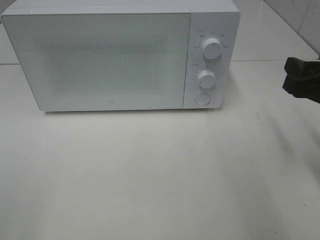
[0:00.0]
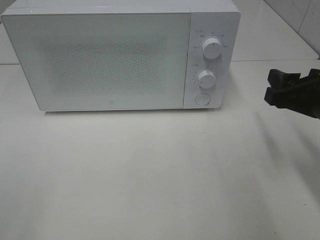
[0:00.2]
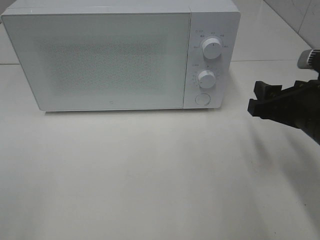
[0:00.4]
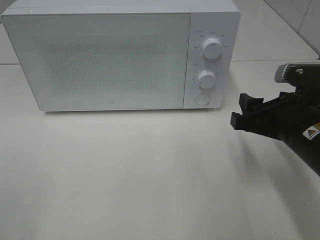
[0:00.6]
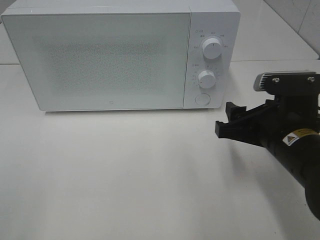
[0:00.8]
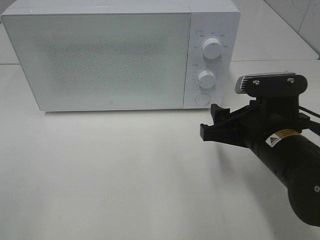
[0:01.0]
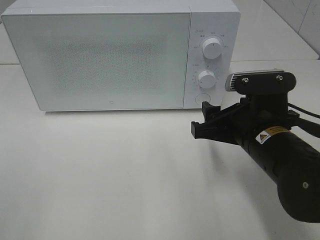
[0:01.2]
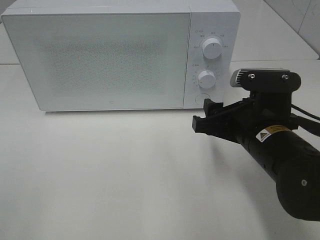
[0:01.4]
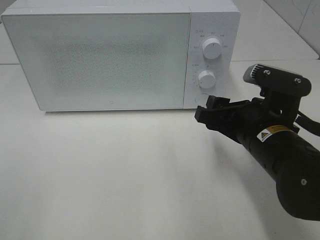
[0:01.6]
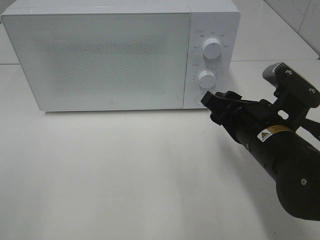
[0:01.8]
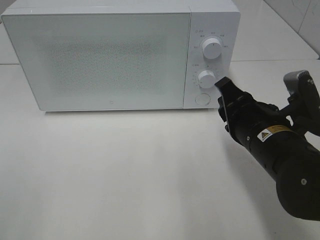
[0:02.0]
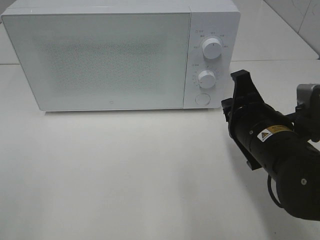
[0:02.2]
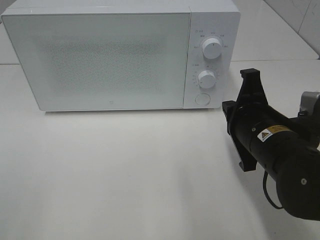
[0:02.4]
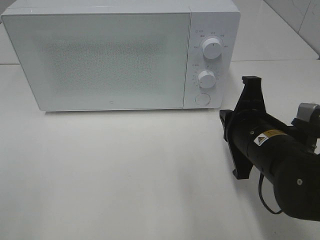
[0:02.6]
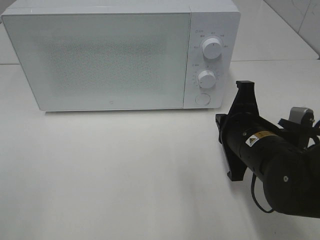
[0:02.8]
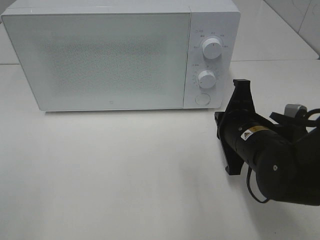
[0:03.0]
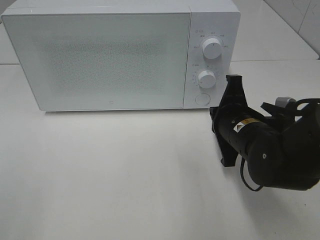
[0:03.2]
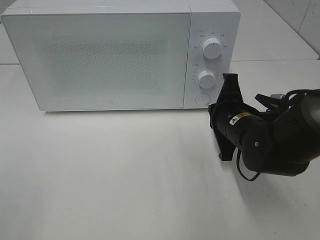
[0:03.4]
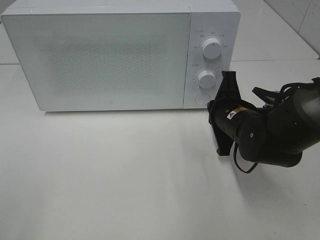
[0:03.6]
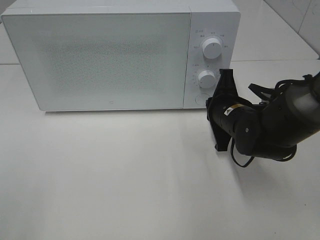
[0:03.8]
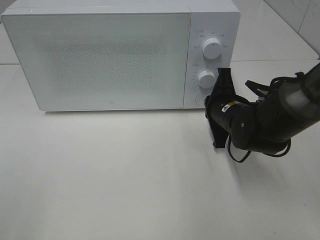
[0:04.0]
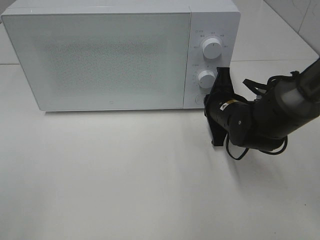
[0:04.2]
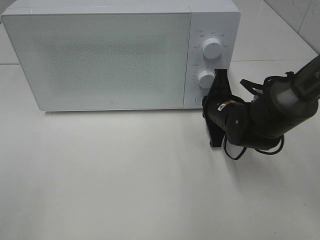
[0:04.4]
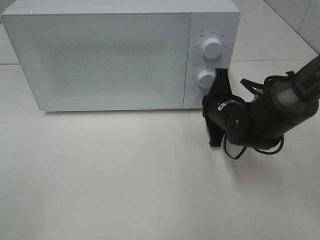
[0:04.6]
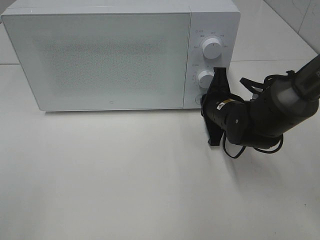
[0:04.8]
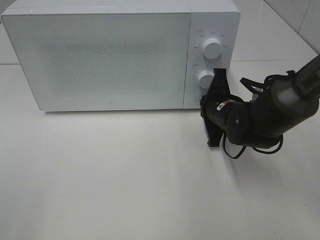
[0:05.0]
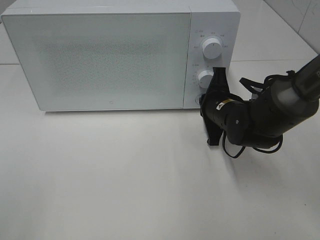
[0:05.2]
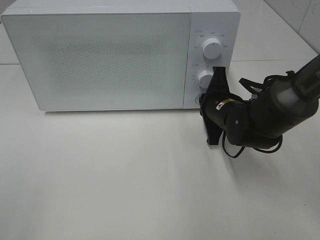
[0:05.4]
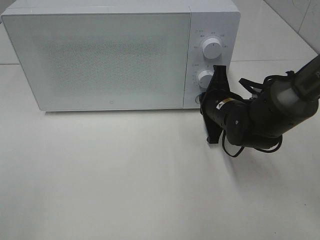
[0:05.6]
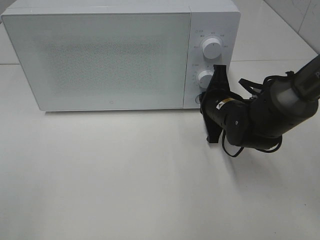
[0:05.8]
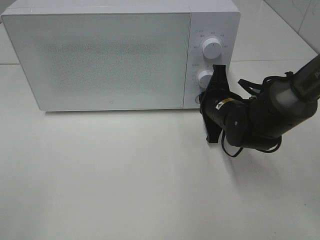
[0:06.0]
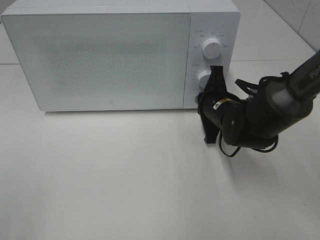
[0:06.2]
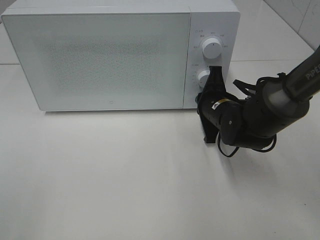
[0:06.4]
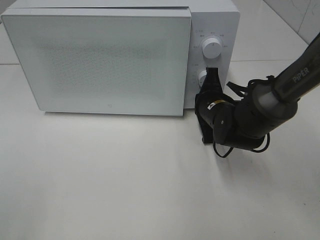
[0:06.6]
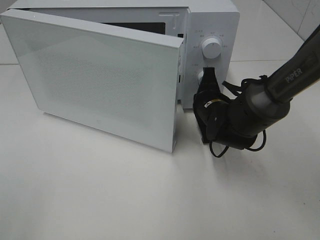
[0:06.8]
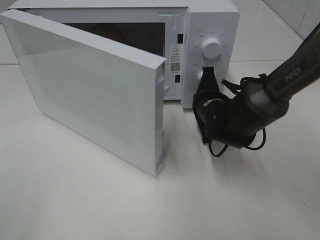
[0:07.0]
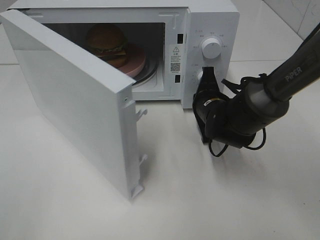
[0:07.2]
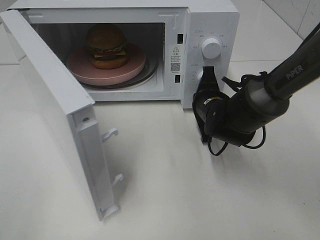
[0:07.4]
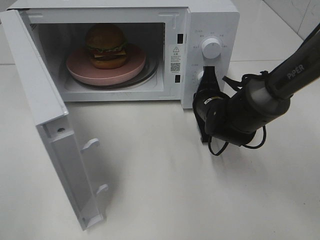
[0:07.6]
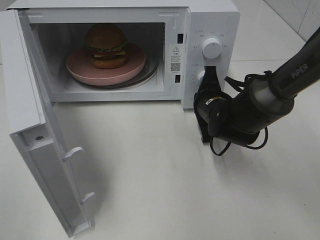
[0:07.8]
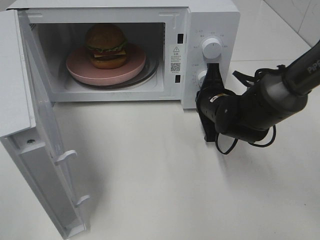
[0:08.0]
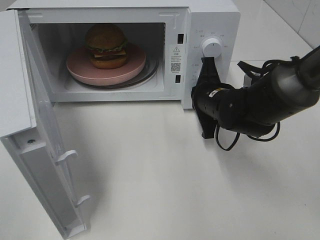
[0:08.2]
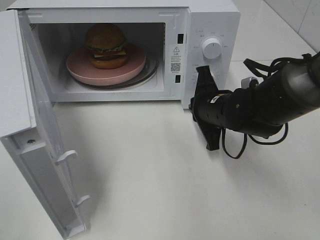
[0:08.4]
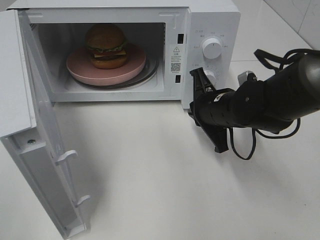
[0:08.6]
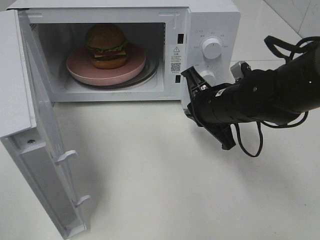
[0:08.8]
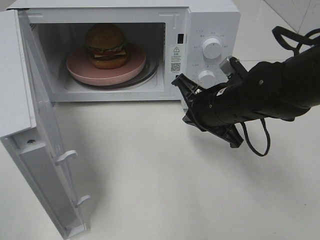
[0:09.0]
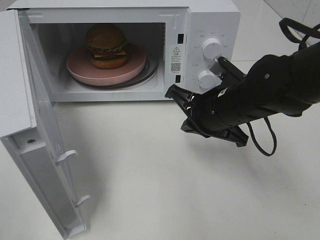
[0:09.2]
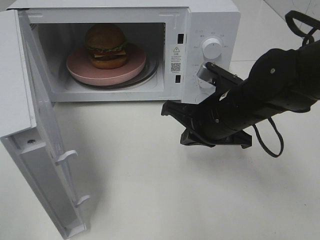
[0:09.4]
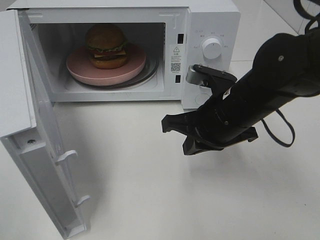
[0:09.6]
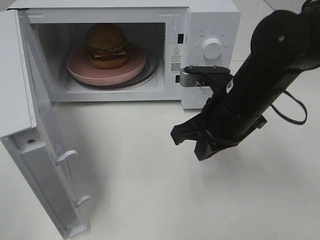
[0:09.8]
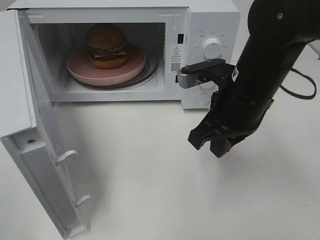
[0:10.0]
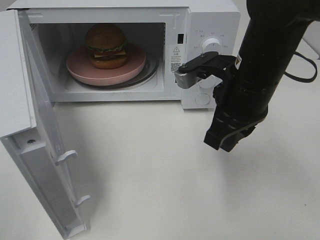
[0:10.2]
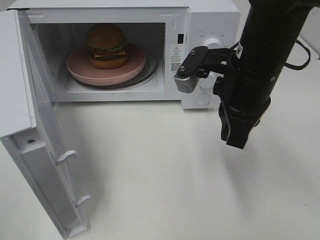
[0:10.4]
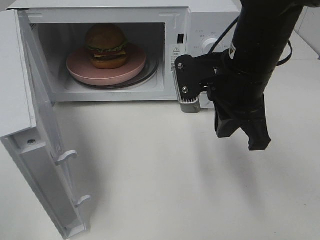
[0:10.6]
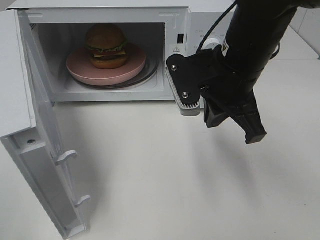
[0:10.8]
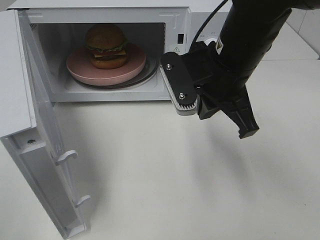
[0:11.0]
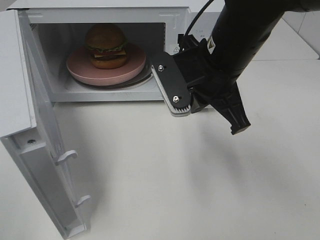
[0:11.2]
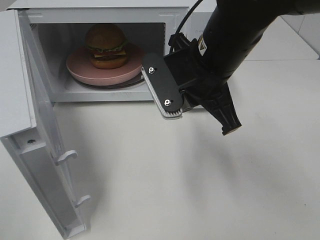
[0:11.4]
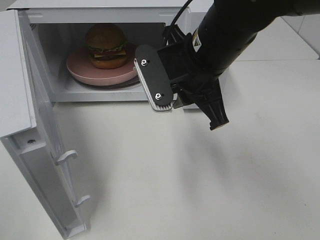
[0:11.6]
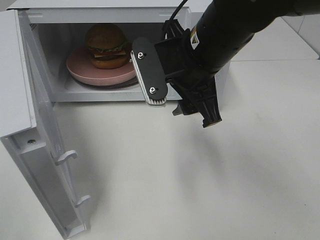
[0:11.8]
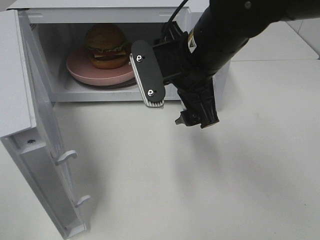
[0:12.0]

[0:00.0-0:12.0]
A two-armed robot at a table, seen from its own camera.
Task of the whole recording: Heat the burger.
Step, 0:00.0 to 0:08.0: Right hand: press the switch.
0:00.0 to 0:01.6: The right gripper moves to the left and downward, about 15 cm.
0:01.6 to 0:03.0: The right gripper closes.
0:03.0 to 0:04.4: The right gripper heads forward, covering approximately 10 cm.
0:04.4 to 0:06.0: Both grippers stay about where they are.
0:07.6 to 0:09.0: The right gripper is displaced backward and upward by some 10 cm.
0:09.0 to 0:10.4: The right gripper moves upward, about 10 cm.
0:10.4 to 0:12.0: The right gripper is displaced to the left by some 5 cm, and opens its fingers.

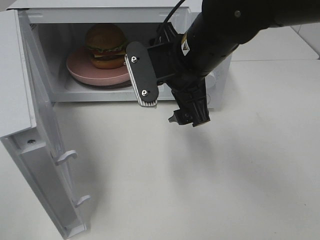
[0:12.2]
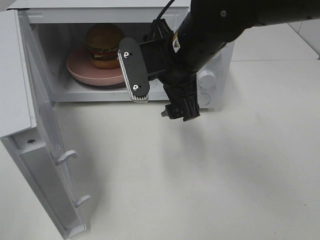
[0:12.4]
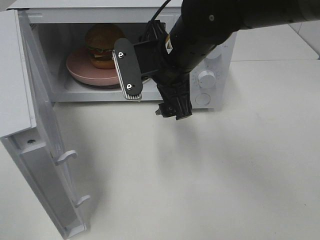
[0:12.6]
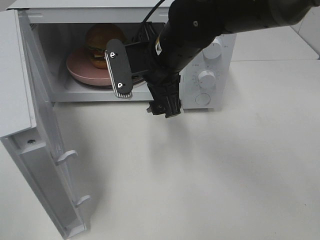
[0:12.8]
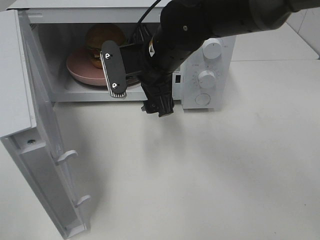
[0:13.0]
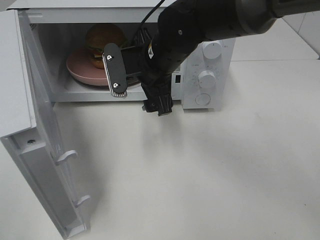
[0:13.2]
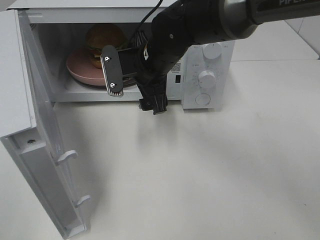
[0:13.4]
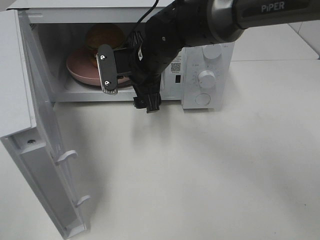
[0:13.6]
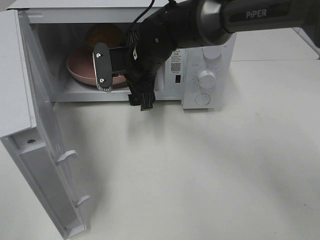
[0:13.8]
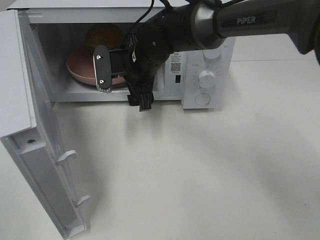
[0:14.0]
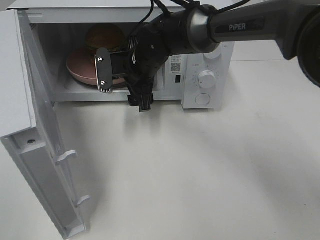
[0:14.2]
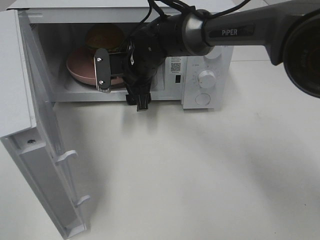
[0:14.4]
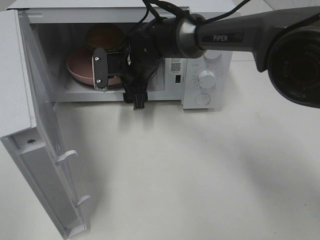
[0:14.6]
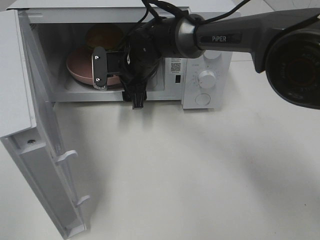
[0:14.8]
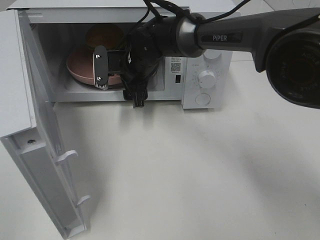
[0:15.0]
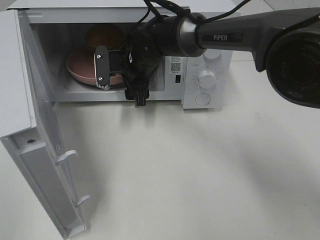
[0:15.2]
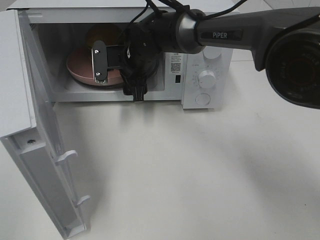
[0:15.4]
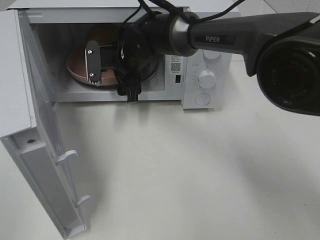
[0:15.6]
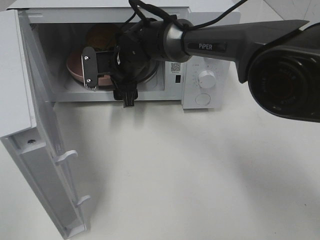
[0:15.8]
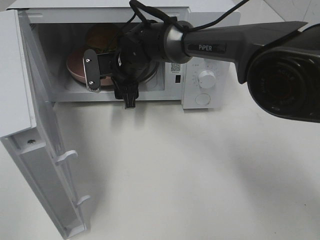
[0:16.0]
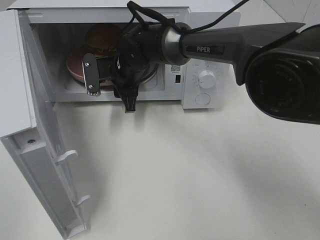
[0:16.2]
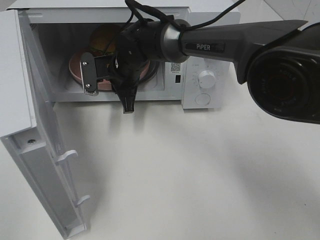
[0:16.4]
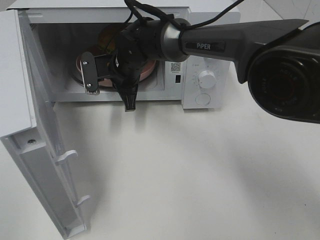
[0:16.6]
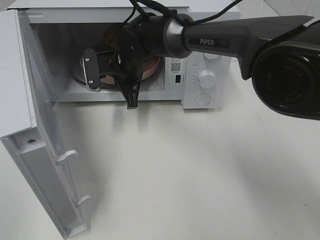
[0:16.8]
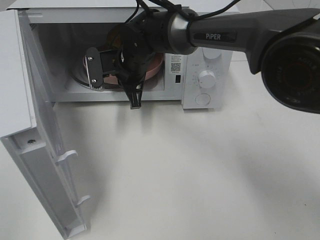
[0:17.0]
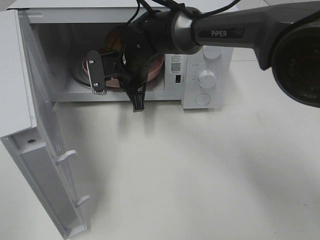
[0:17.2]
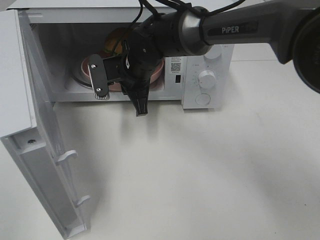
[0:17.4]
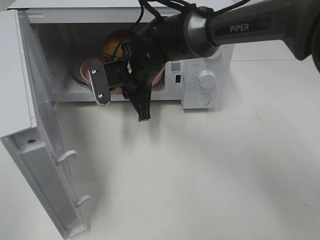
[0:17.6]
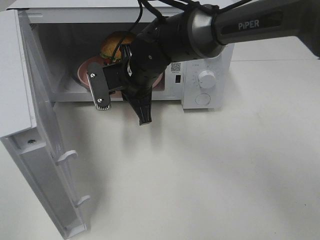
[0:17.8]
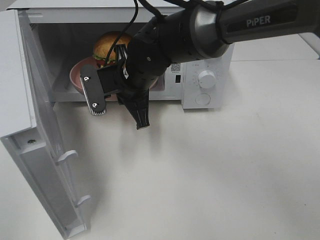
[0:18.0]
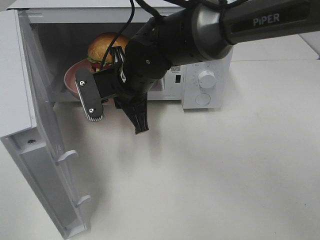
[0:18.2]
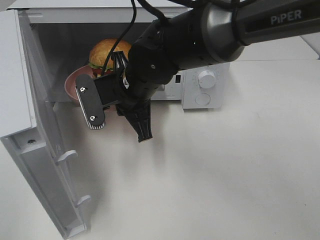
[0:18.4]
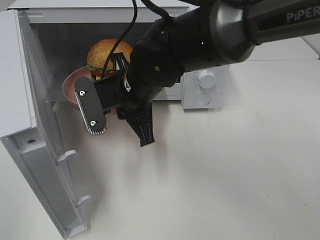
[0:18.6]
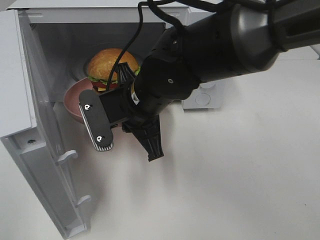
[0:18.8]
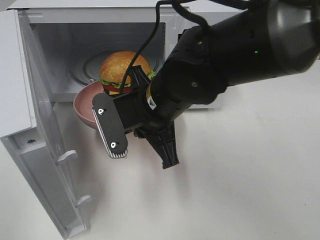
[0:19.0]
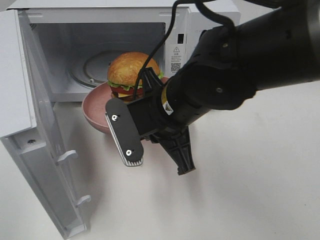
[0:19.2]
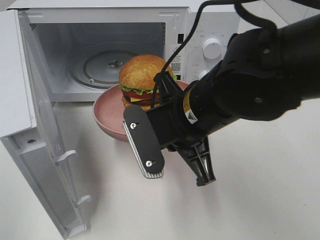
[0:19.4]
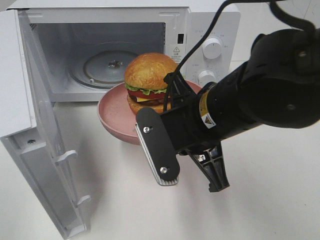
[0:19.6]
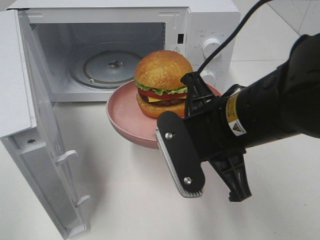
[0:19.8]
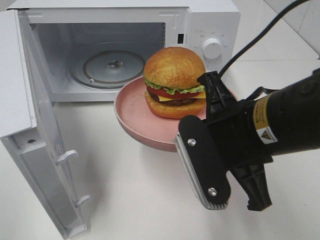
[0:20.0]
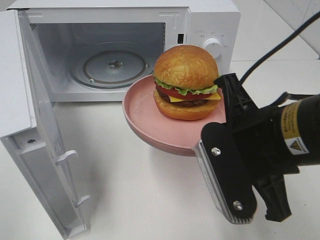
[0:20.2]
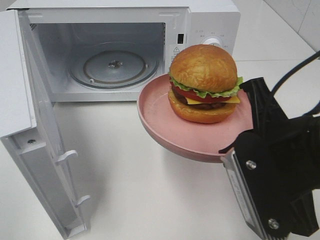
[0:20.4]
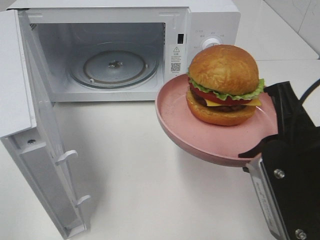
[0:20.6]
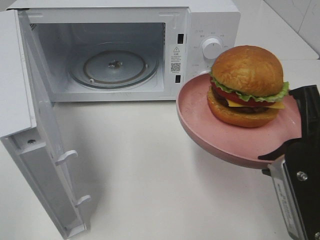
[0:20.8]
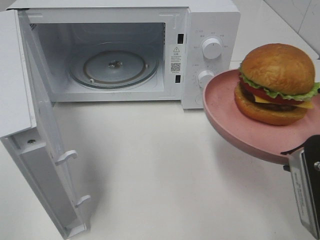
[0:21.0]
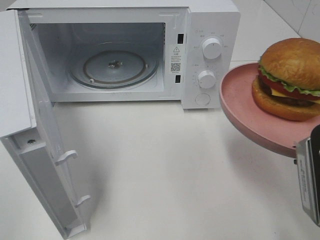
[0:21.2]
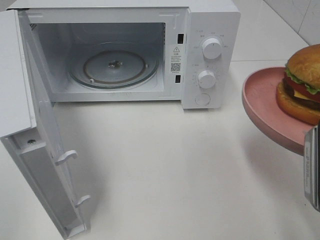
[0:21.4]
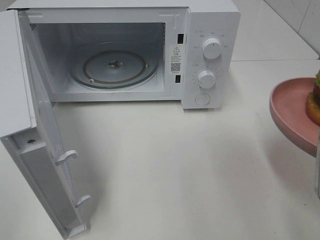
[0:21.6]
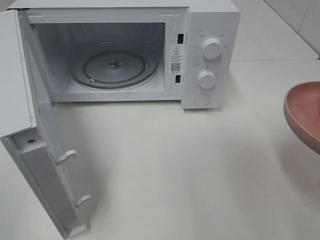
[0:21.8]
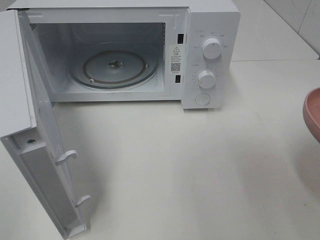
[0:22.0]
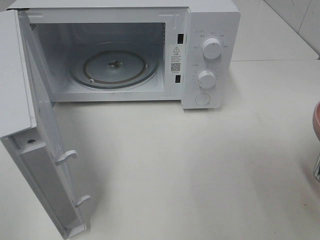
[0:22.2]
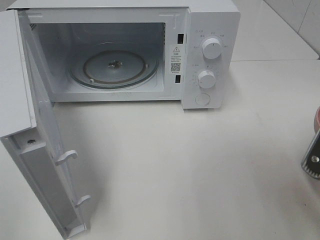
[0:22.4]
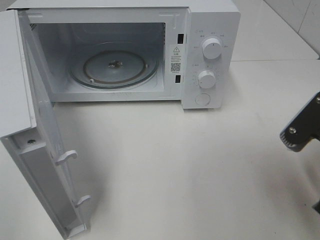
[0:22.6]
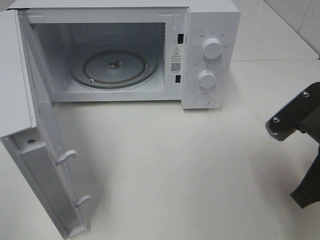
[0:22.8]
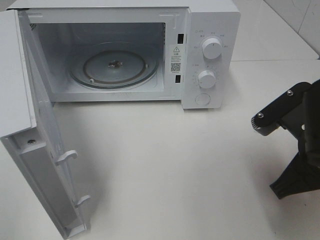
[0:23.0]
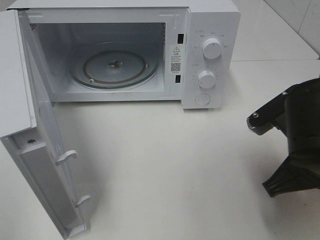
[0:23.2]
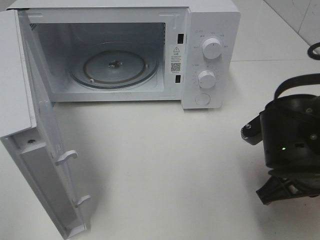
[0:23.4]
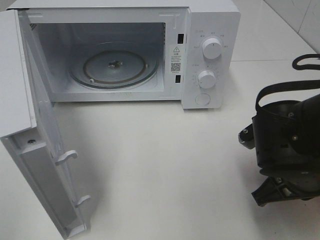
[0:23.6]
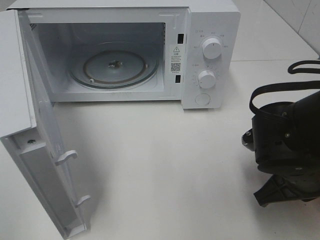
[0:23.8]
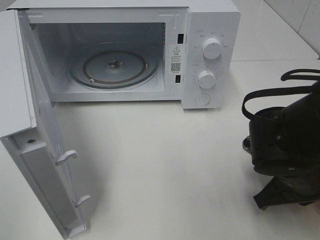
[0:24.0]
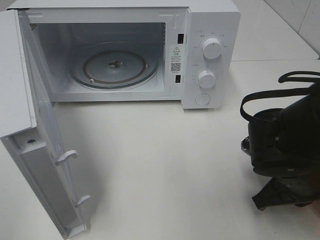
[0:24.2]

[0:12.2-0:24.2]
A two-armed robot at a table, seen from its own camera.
Task of the whole recording: Heat the burger.
Step, 0:12.2 to 0:16.4: Right hand: grab the plate with the hamburger.
0:12.2 to 0:13.8: The right gripper heads forward, downward and to the left, covering some 15 cm.
0:13.8 to 0:15.2: The right gripper ends up about 5 cm from where it was.
0:15.2 to 0:16.6: The right gripper closes.
0:16.6 to 0:18.2: The right gripper moves backward, some 10 cm.
0:18.2 to 0:19.8: The right gripper travels backward and to the right by about 20 cm.
0:19.8 to 0:21.2: The right gripper moves to the right and backward, some 15 cm.
0:22.6 to 0:24.2: The right gripper shifts roughly 10 cm downward and forward.
